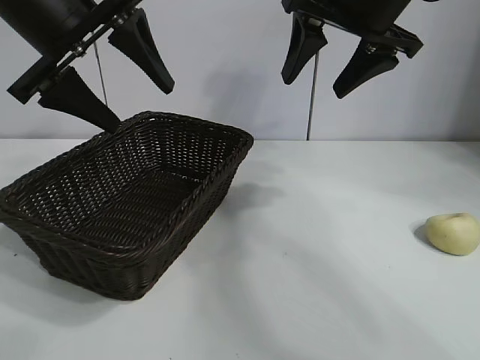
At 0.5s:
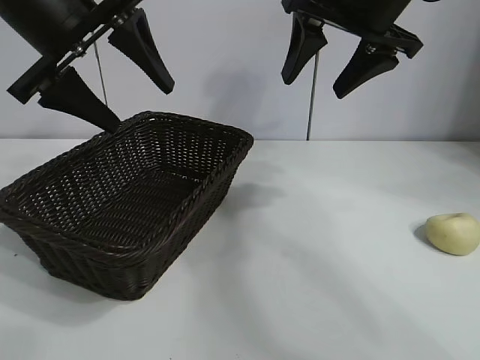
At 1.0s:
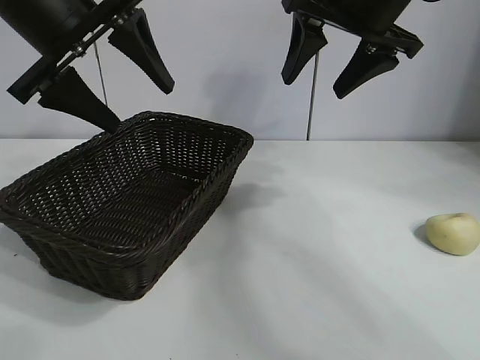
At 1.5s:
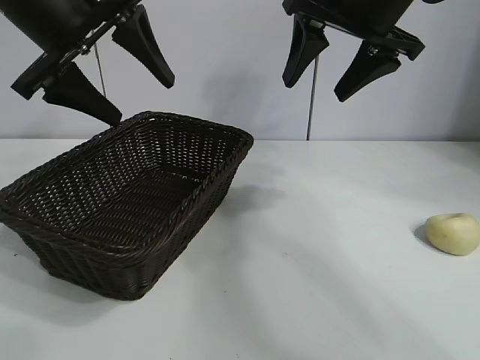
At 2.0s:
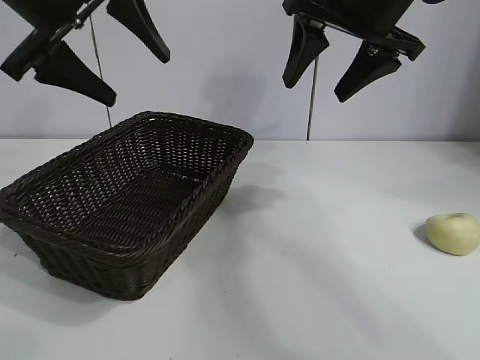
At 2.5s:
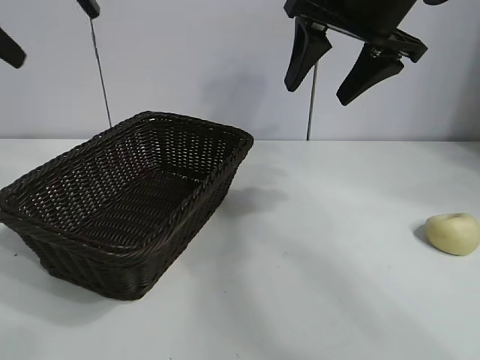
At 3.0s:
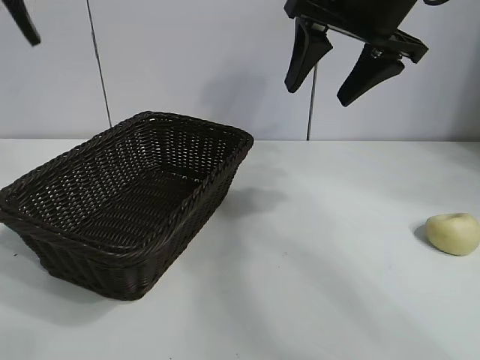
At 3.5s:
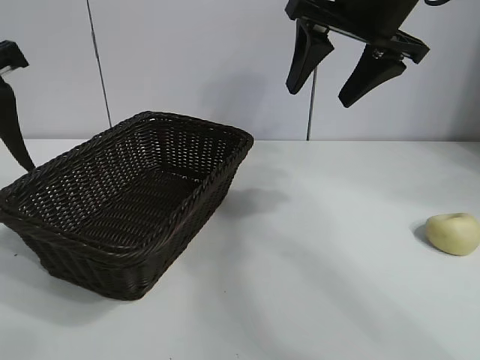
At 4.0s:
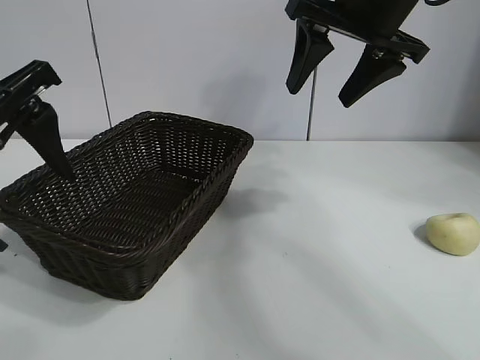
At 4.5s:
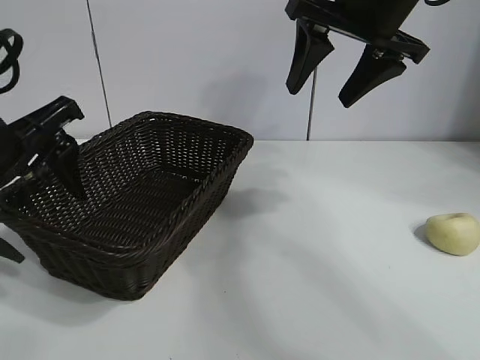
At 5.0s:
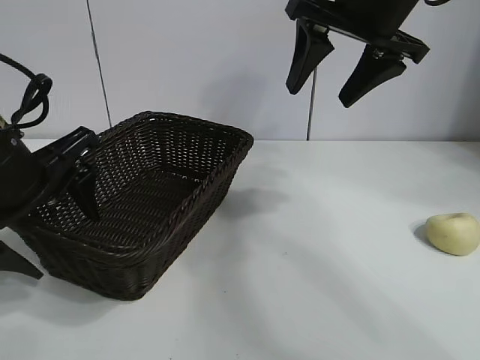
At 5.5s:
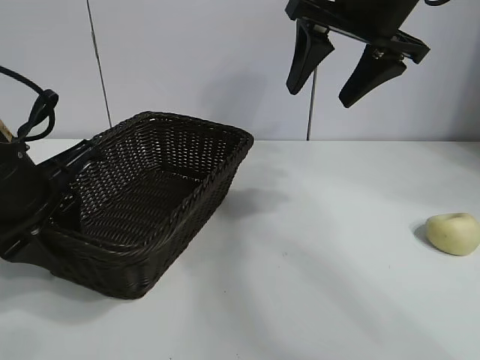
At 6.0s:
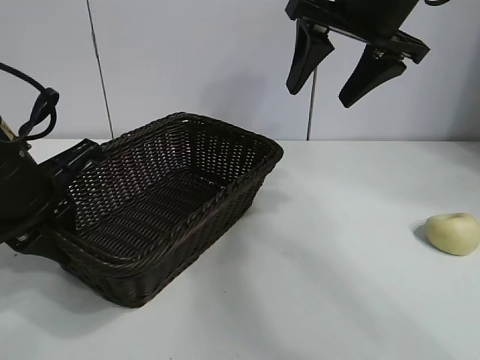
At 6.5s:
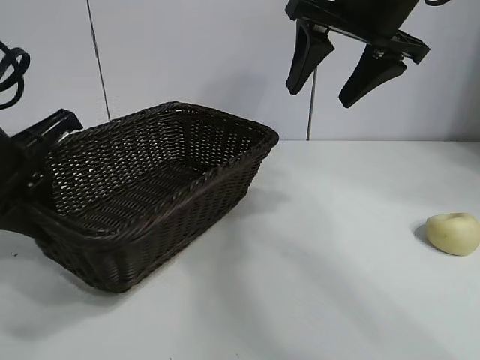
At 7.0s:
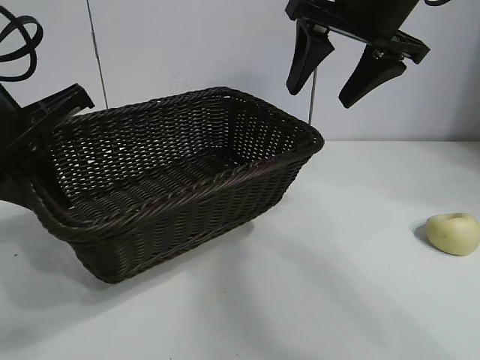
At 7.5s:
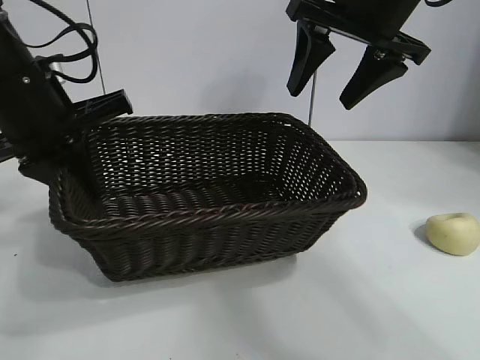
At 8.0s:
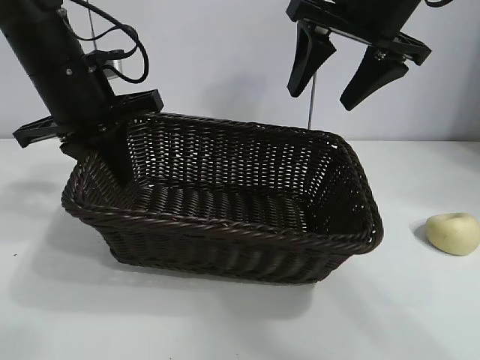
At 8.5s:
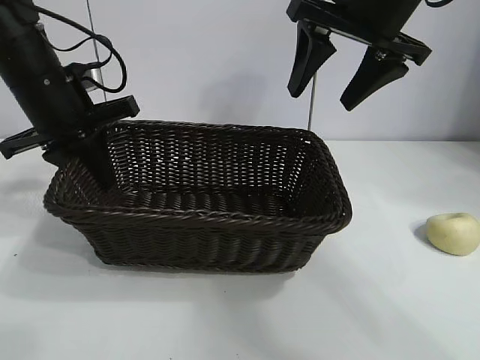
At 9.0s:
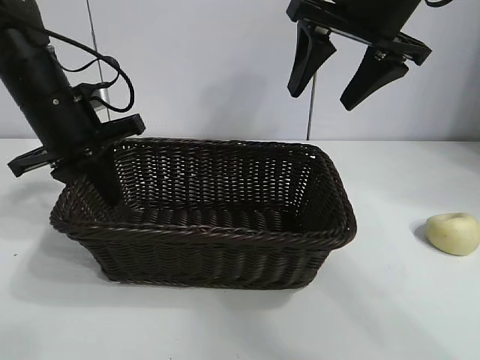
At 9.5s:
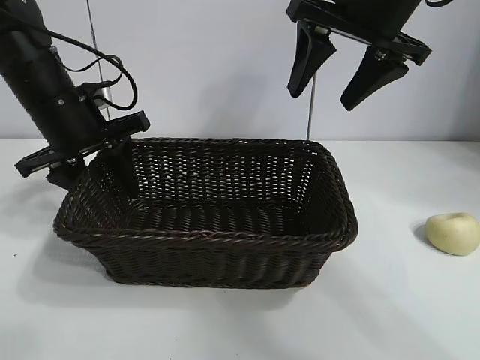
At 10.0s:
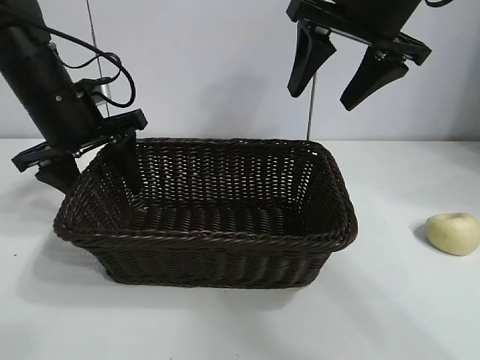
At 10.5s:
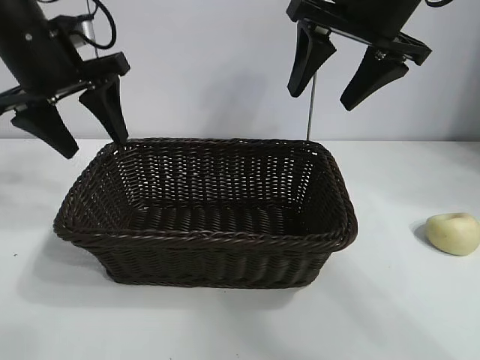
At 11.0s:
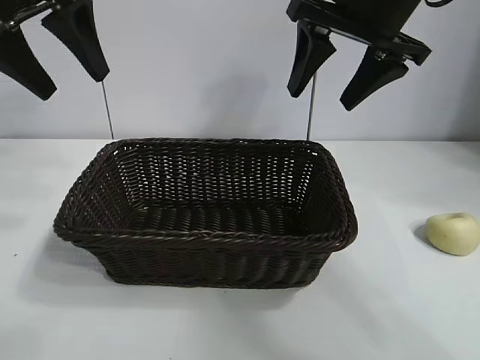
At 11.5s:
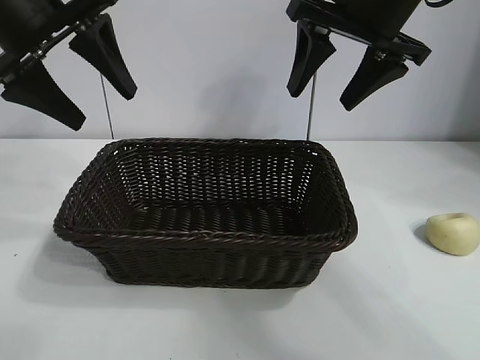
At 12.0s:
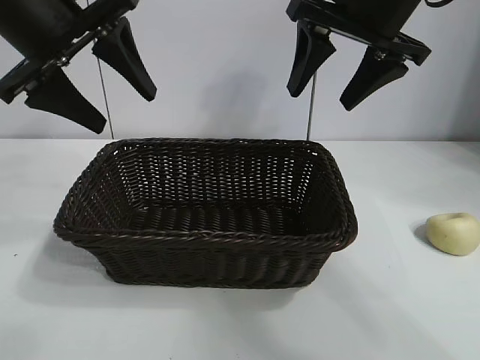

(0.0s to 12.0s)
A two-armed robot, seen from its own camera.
Task of the whole recording: pick up the egg yolk pastry and put it into the basket.
Step, 1.5s - 5.5s: Grasp the basket with left gripper.
Step, 6.0s - 9.5s: Place the basket in the center of view with left gripper.

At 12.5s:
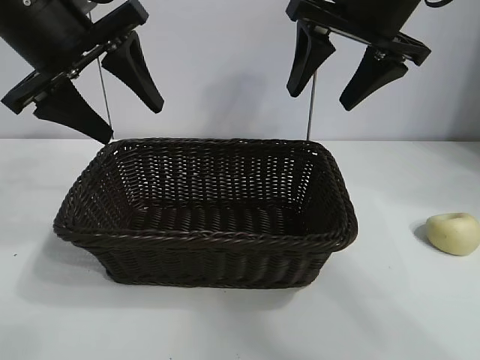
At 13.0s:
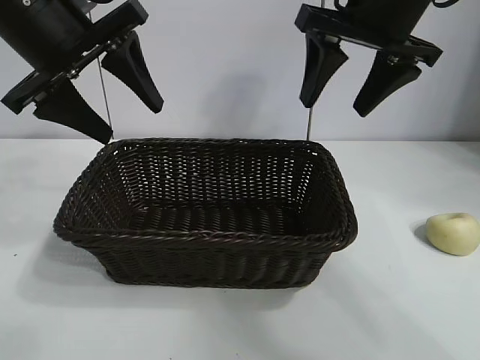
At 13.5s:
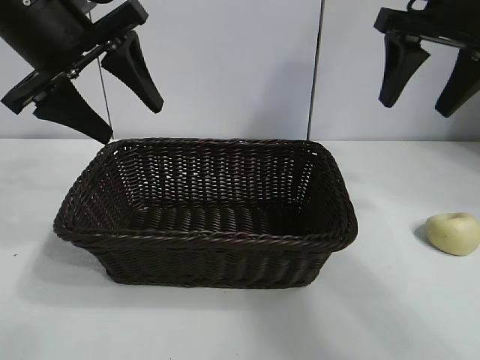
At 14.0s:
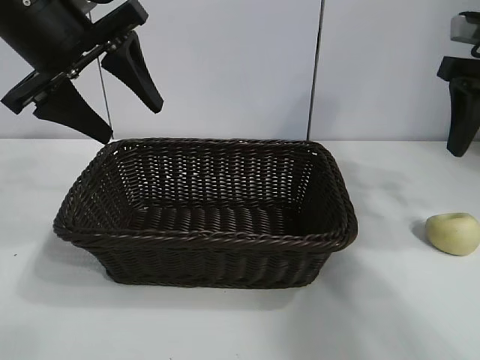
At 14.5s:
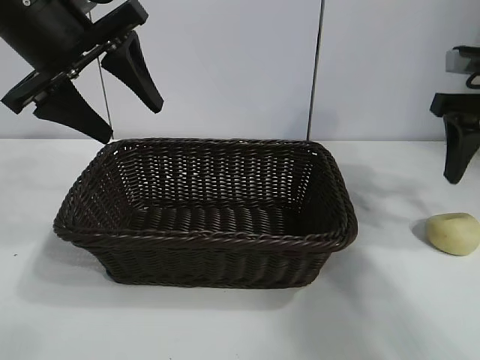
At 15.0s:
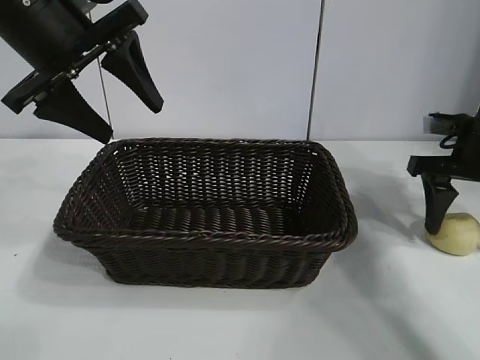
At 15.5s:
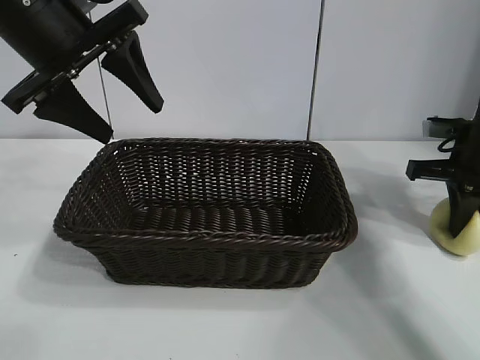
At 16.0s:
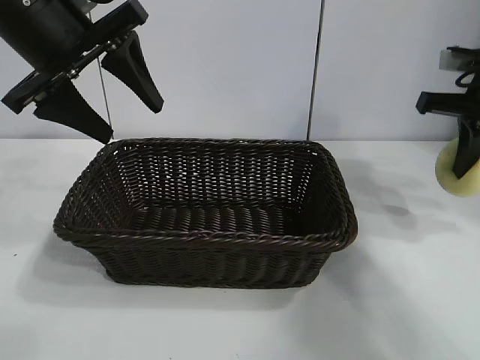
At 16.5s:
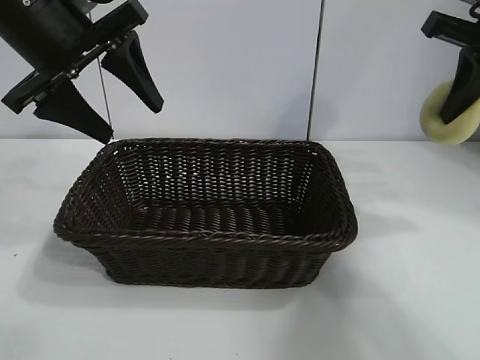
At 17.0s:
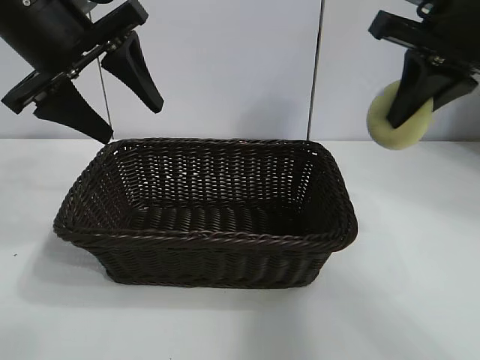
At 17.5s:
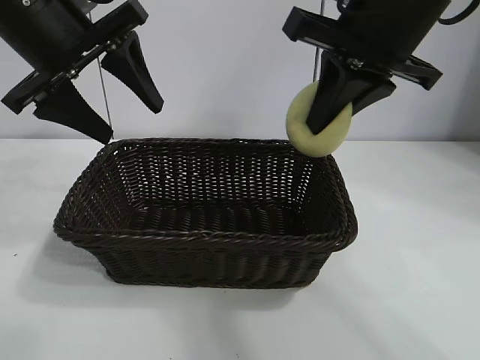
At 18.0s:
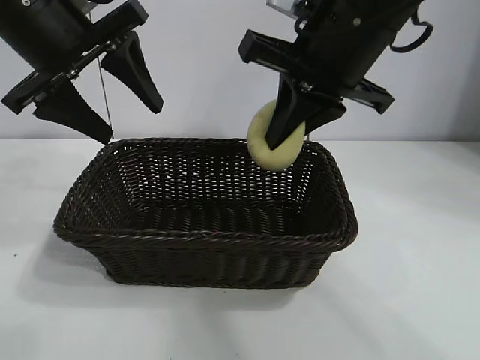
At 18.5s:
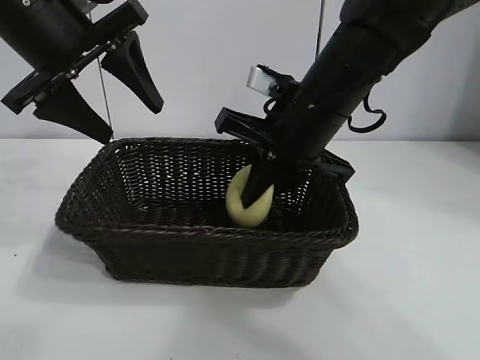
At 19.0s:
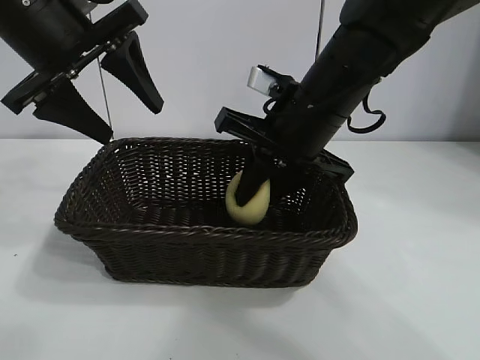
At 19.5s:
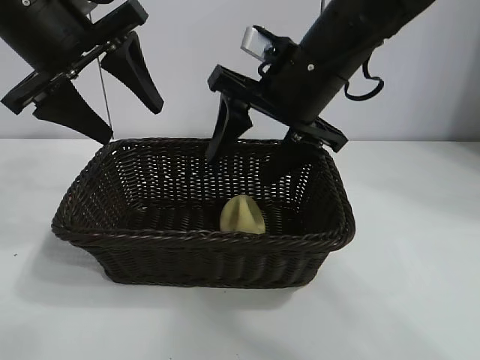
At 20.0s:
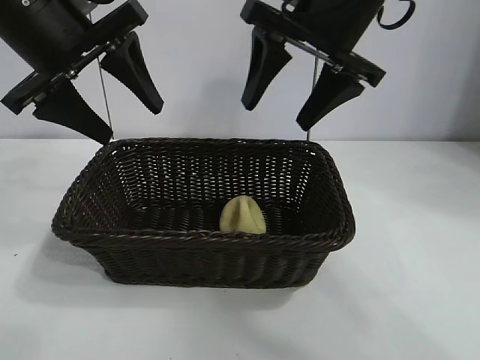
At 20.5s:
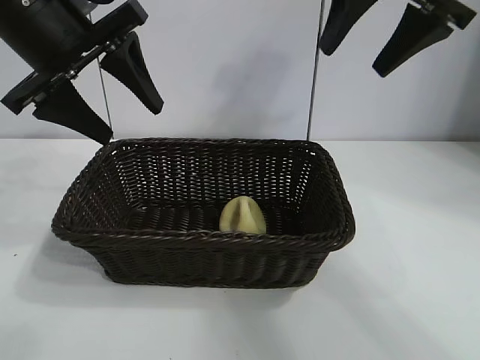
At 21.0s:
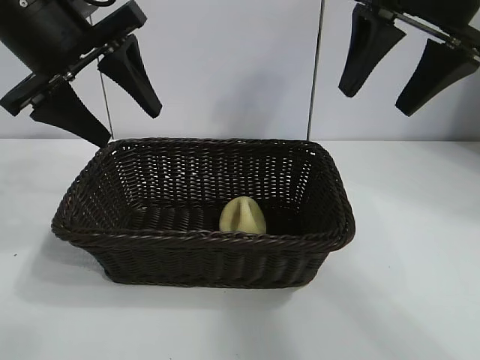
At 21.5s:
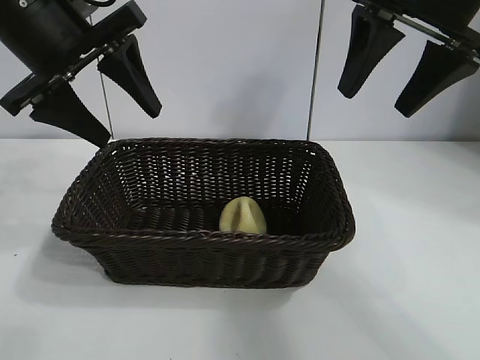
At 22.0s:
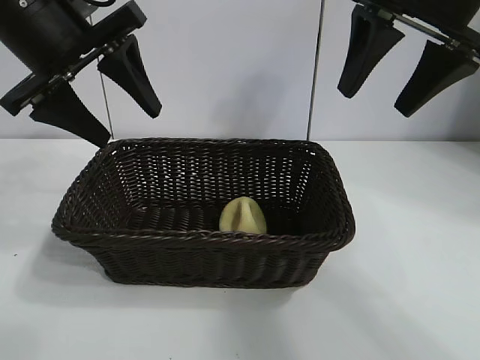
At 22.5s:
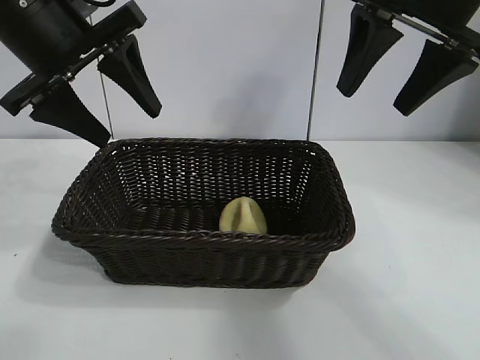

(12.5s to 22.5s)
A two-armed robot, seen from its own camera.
Task of the whole recording: pick up the egg yolk pastry and put it into the basket.
Step, 12.5s - 15.5s: Grasp egg yolk pastry with right gripper.
Step, 16.0s - 19.0s: Place the egg yolk pastry in the basket with right gripper.

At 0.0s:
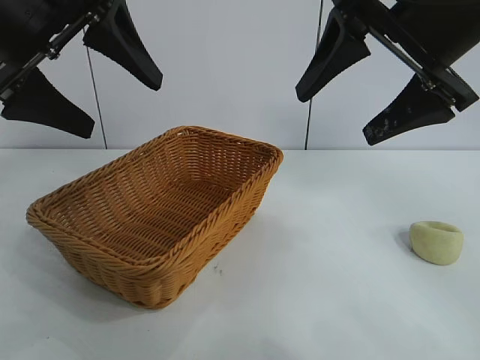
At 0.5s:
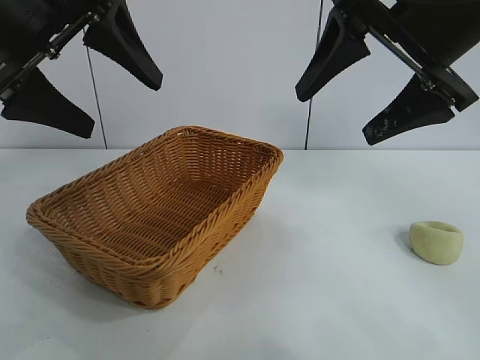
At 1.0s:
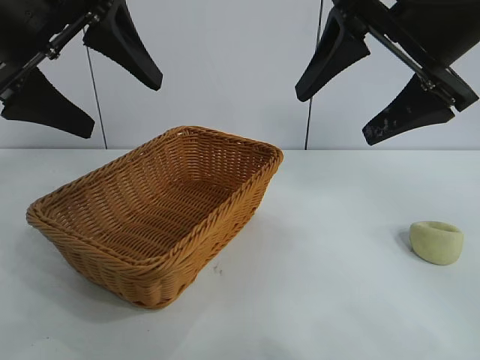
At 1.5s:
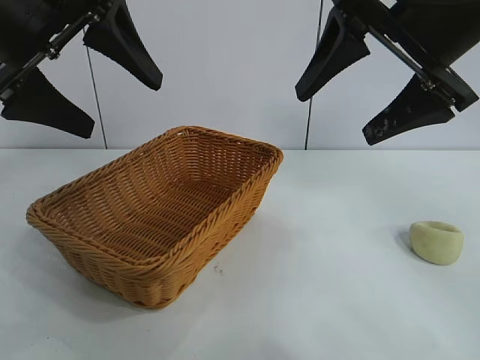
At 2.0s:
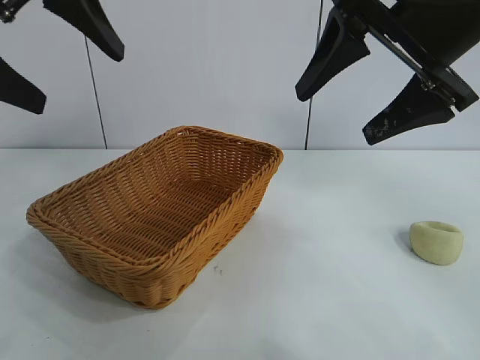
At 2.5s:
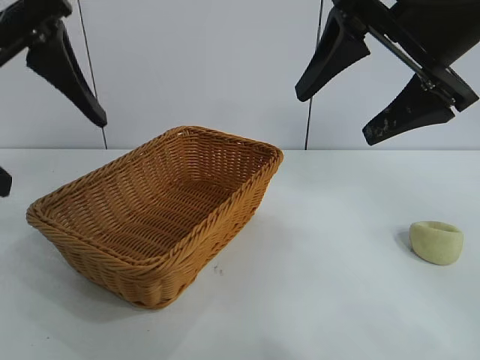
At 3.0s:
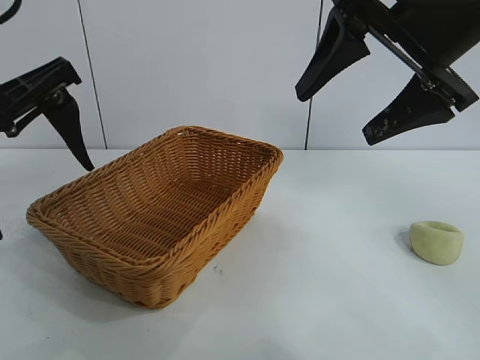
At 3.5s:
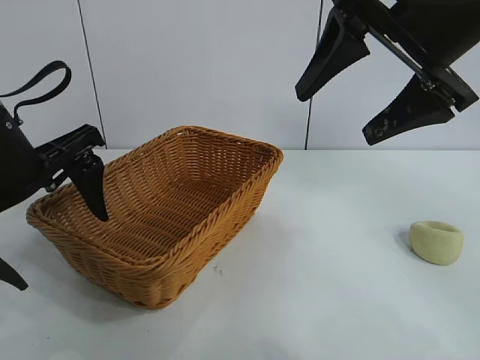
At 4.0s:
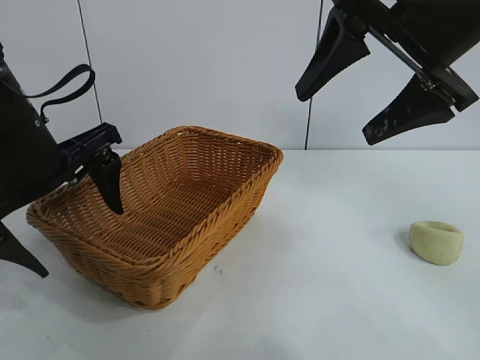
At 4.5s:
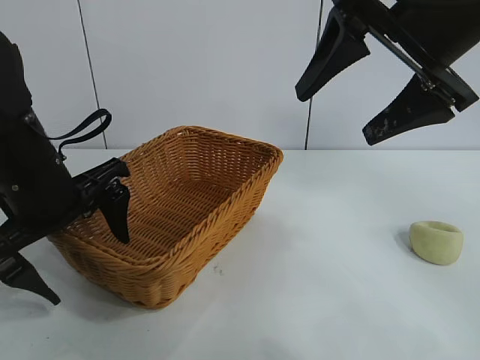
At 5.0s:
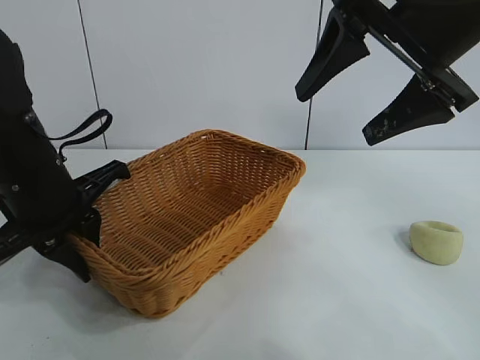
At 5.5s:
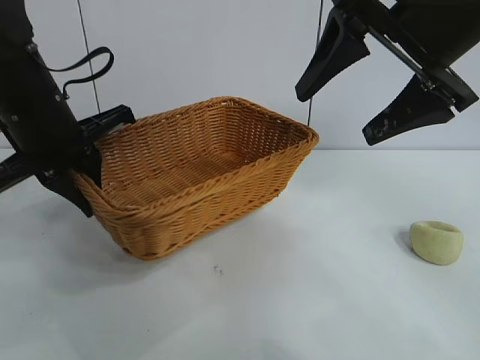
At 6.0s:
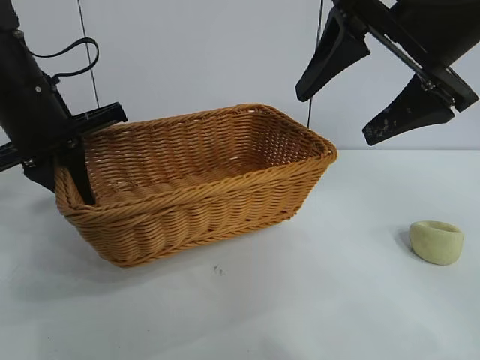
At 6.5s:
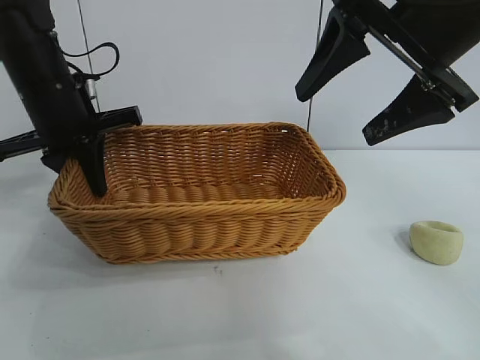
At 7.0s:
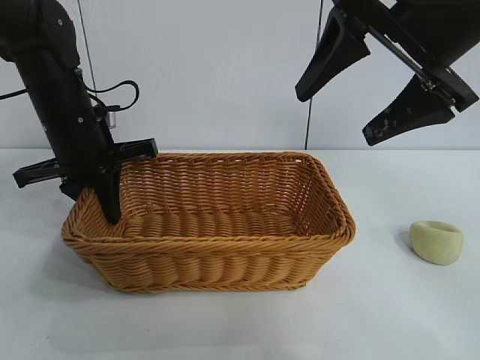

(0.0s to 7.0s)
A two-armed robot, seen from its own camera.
Task of the whole recording: pick up the egg yolk pastry and put it into the basket.
Step, 2.0s - 4.5s: Grasp the basket with left gripper.
